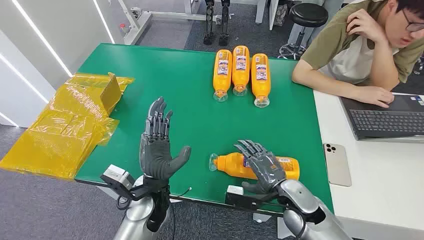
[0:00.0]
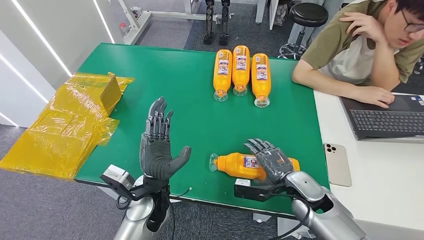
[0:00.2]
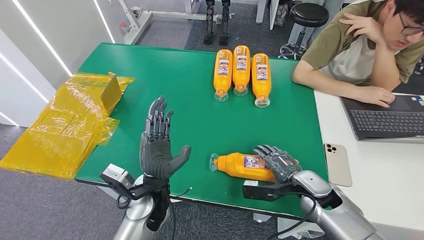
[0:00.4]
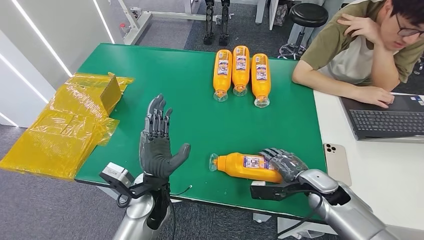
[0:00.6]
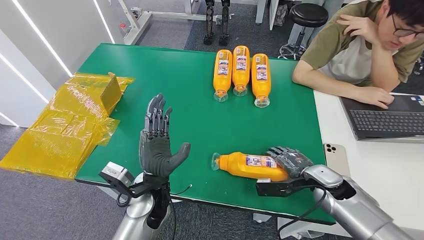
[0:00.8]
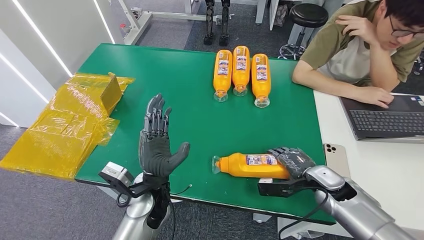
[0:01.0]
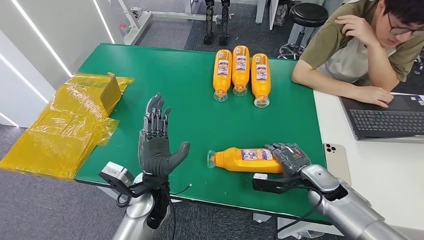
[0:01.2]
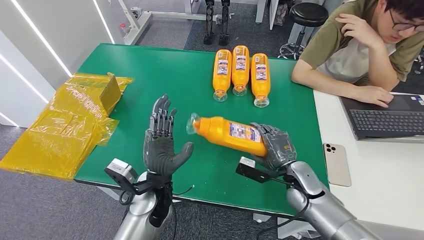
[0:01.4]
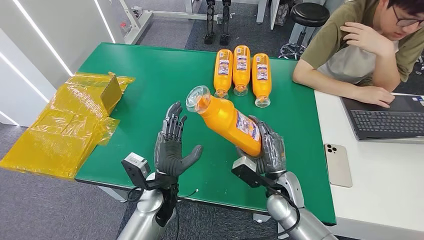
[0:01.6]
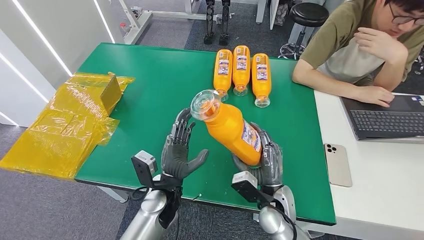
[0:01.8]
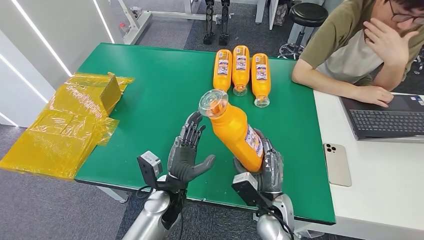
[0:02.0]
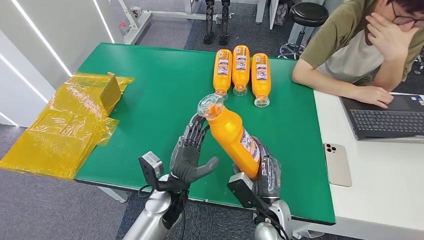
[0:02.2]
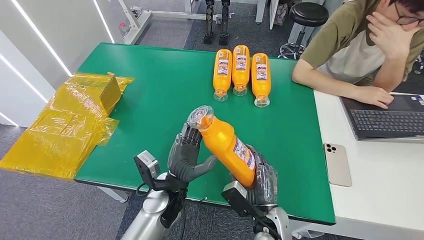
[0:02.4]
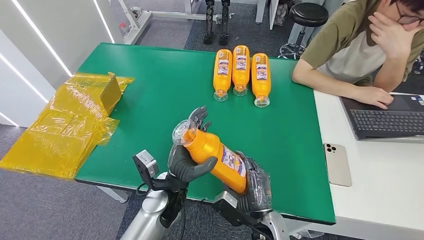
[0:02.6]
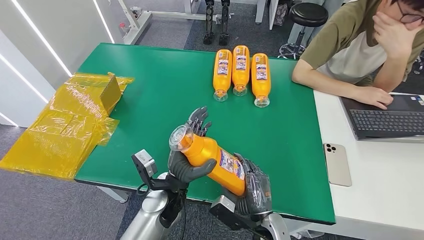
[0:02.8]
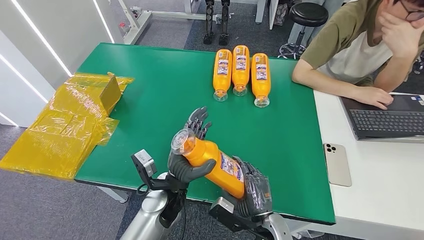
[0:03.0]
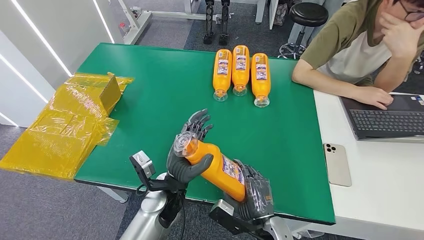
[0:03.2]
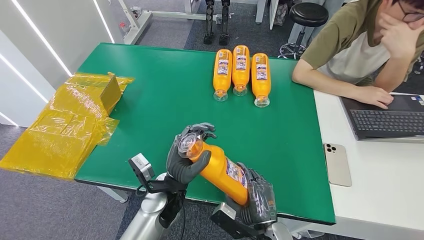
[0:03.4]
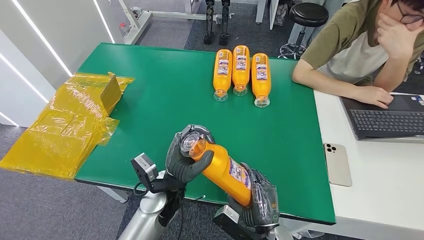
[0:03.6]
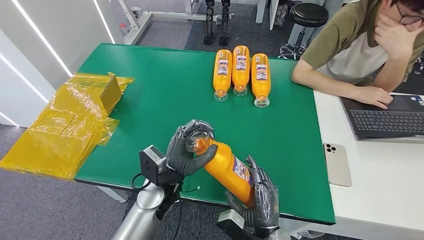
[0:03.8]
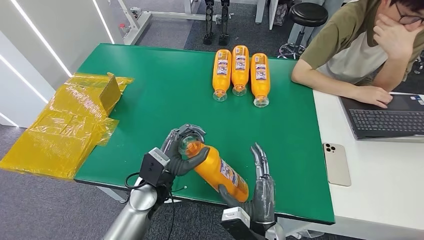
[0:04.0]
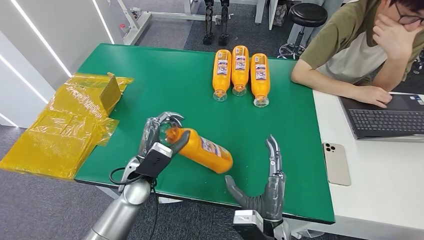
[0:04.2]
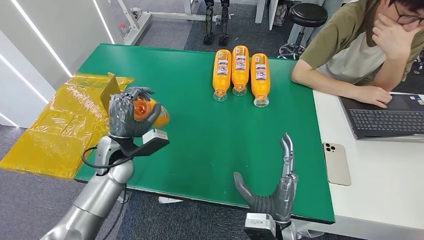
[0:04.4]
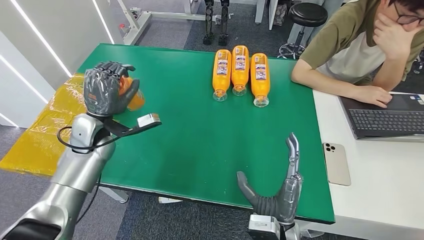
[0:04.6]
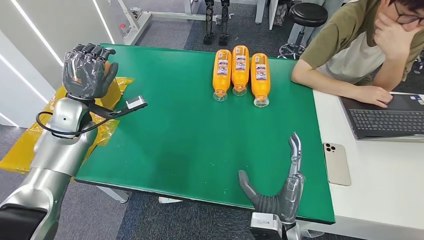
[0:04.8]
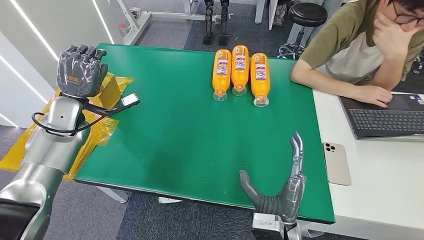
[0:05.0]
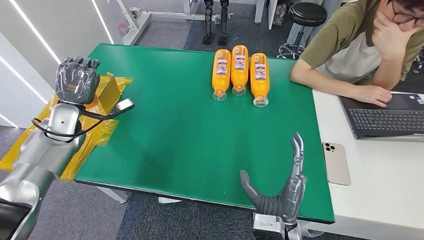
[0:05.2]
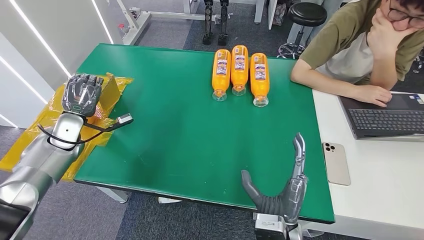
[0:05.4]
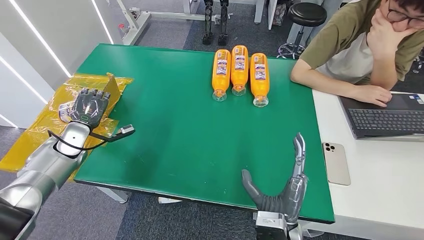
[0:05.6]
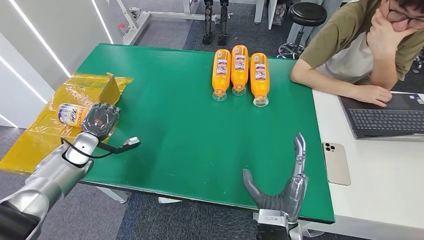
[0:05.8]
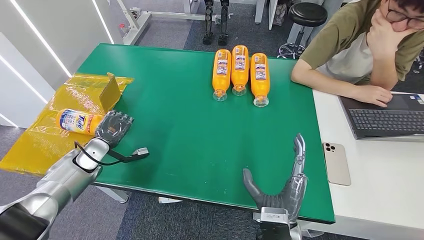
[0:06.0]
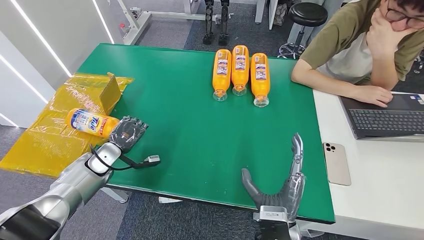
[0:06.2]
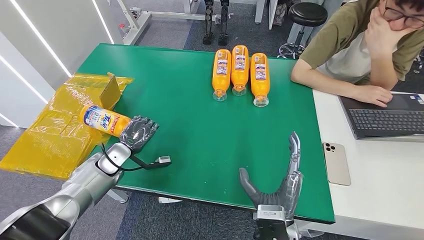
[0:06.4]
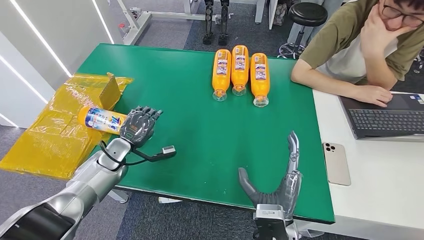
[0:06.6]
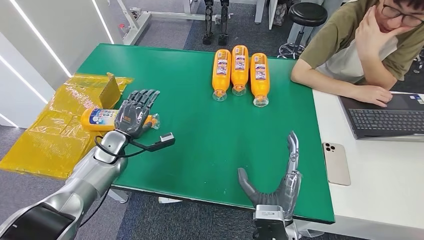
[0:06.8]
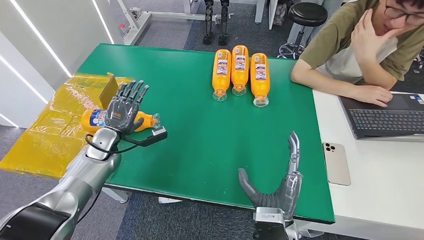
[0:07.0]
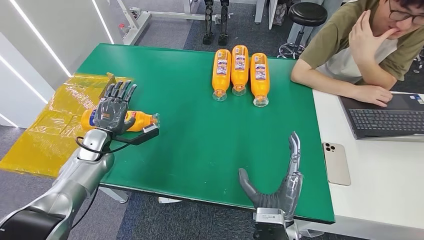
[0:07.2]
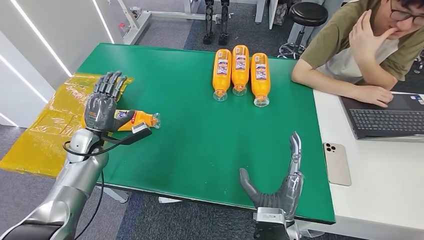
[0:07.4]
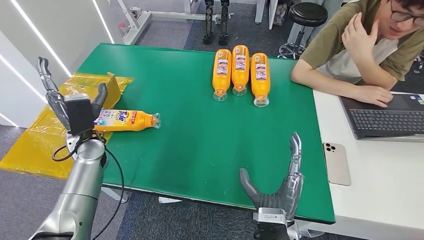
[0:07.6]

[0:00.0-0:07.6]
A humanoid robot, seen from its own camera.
Step, 0:00.0 to 0:02.4: Pick up the bottle from the table.
Step, 0:02.6 to 0:07.4: Turn the bottle to the front side.
0:01.6 to 0:03.0: The right hand shifts roughly 10 cm backward.
0:03.0 to 0:04.6: The right hand moves upward, some 5 cm; the left hand heads to the left, forward and upward, covering approximately 25 cm.
0:04.6 to 0:06.0: The left hand moves downward and to the left, approximately 15 cm.
0:06.0 to 0:07.6: The left hand moves to the right and upward, some 10 cm.
